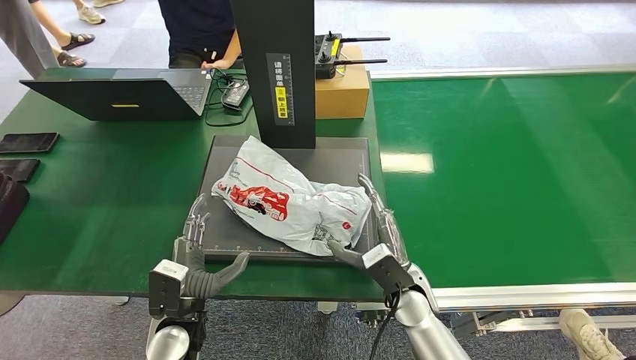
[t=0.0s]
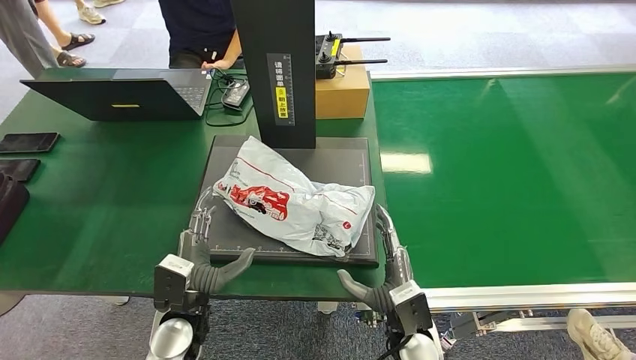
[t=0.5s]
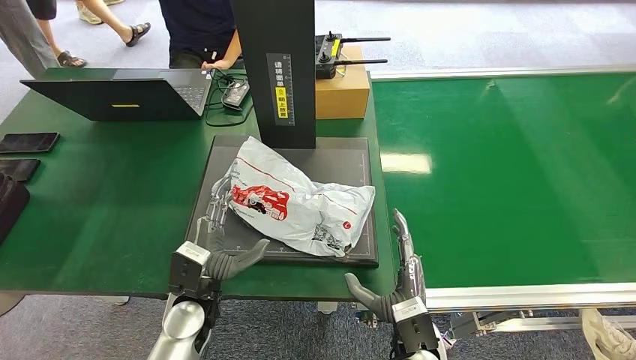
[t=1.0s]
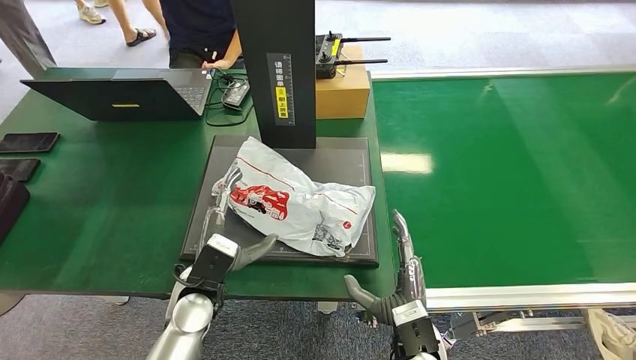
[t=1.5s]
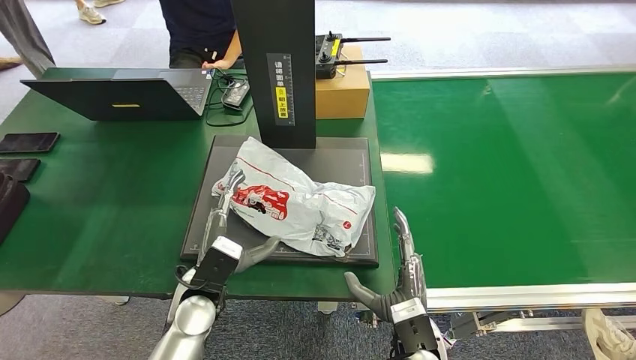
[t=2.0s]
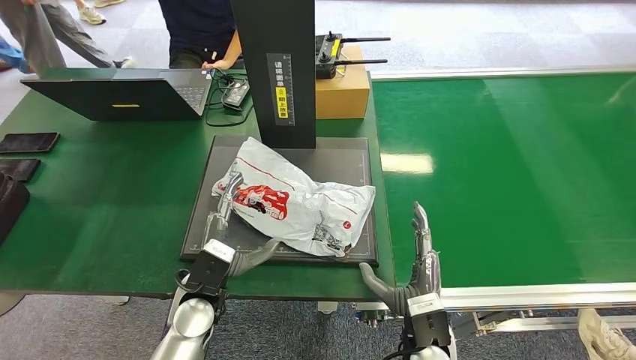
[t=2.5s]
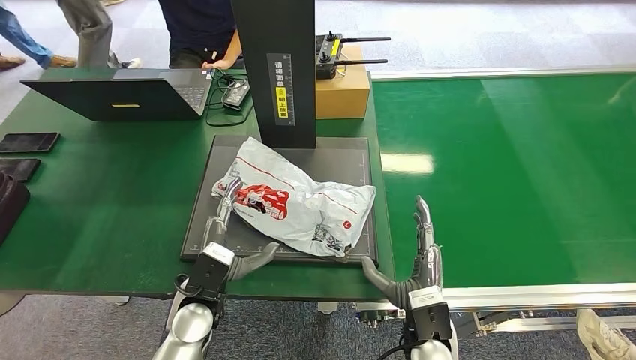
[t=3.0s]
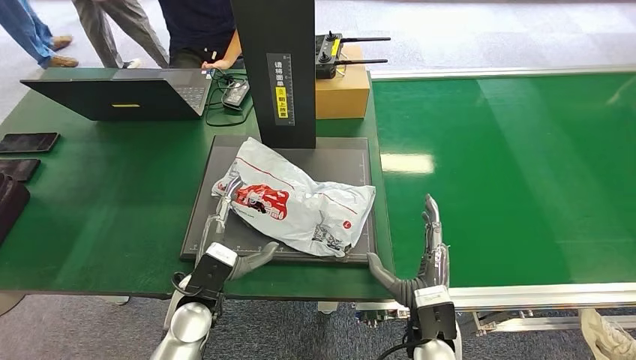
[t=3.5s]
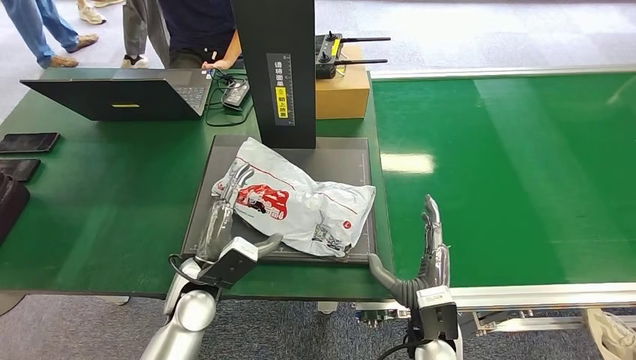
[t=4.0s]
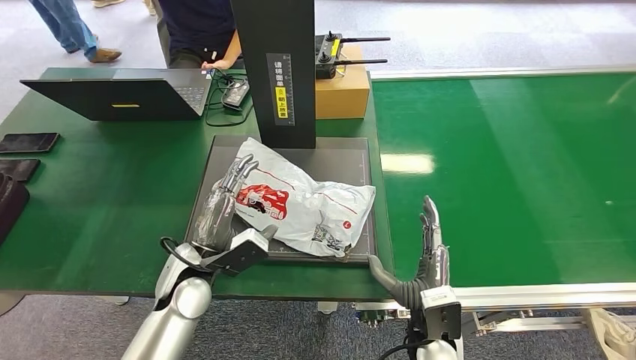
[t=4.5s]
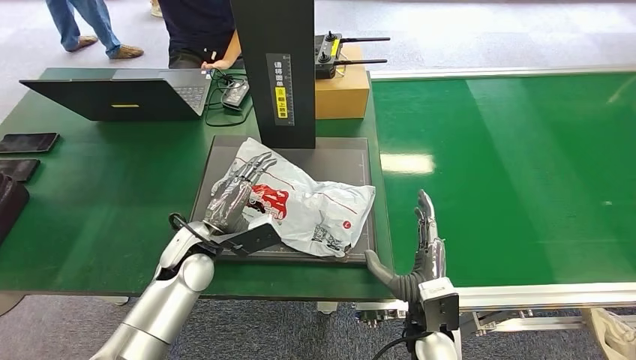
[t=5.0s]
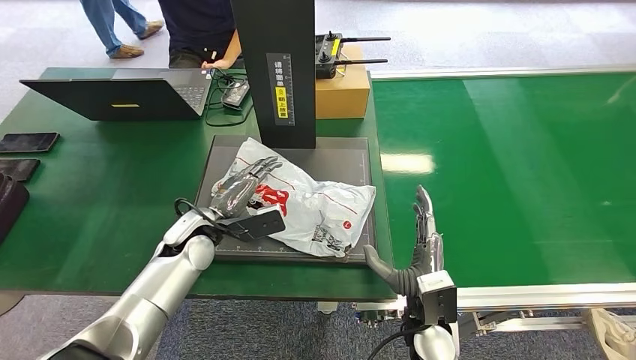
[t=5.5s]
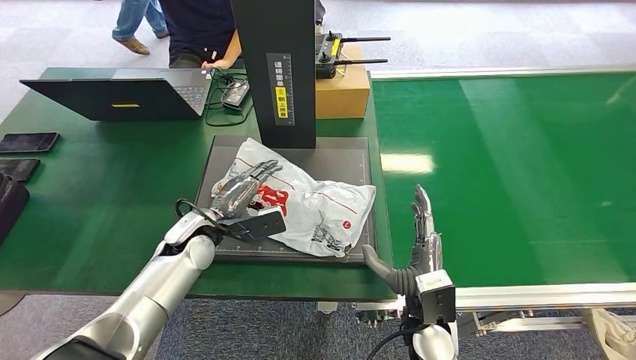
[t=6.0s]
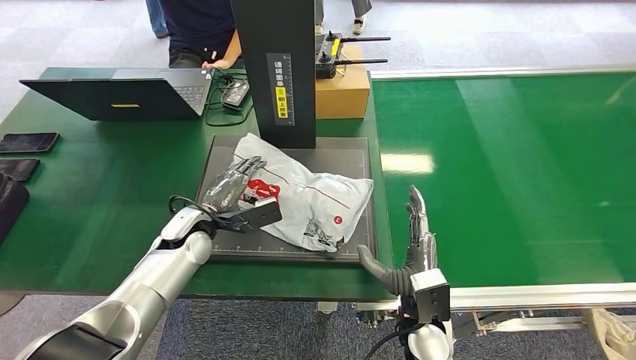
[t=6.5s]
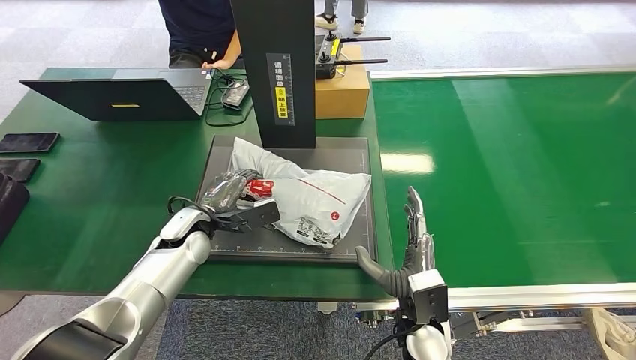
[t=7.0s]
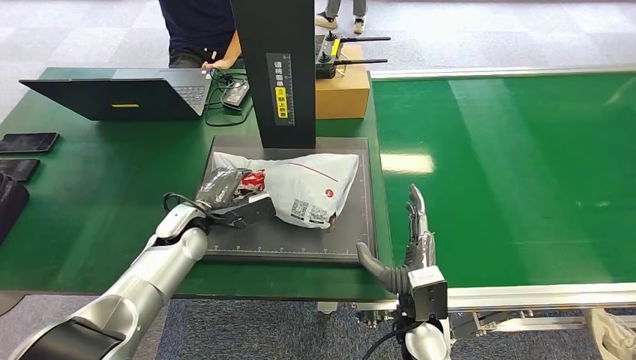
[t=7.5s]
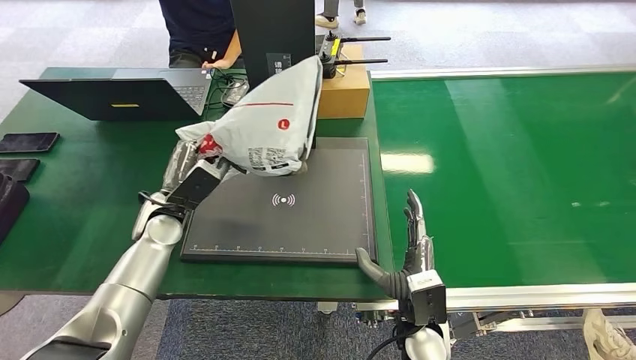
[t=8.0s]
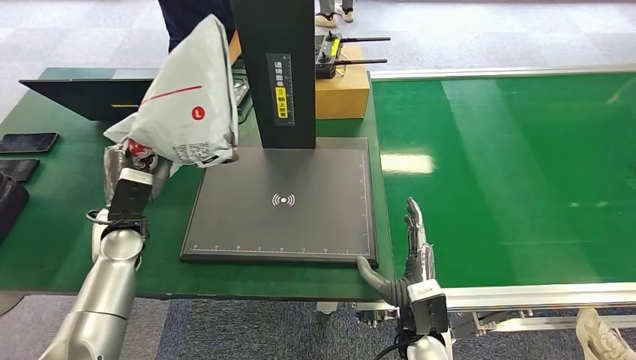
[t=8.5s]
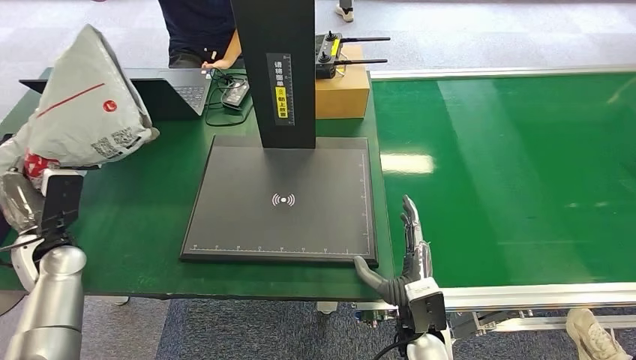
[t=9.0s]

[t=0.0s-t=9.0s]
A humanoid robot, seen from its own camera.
Step, t=0.5s to t=8.0s: Pick up the package from the inbound machine.
t=0.0s to t=2.0s: The left hand changes place by roughly 5 cm, while the right hand travels backward by about 10 cm.
t=4.5s to t=7.0s: The left hand moves forward, about 10 cm.

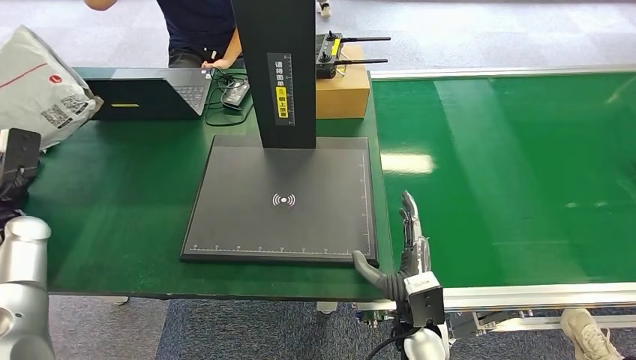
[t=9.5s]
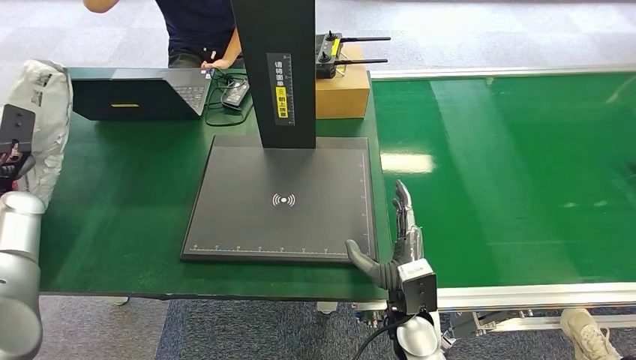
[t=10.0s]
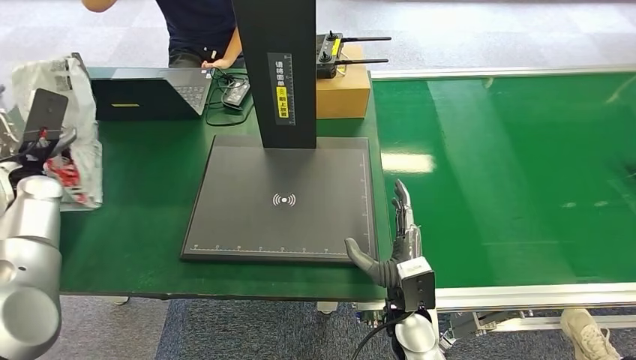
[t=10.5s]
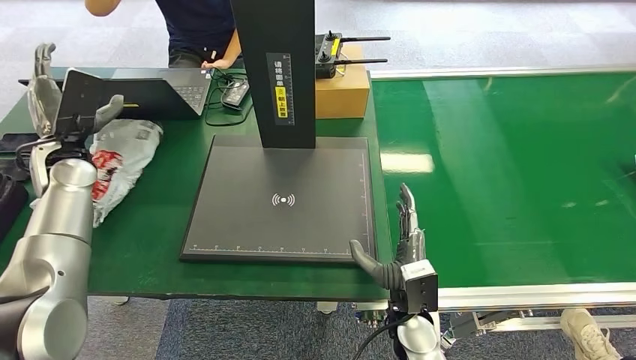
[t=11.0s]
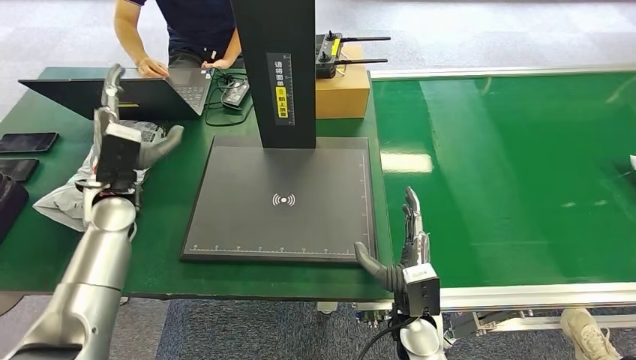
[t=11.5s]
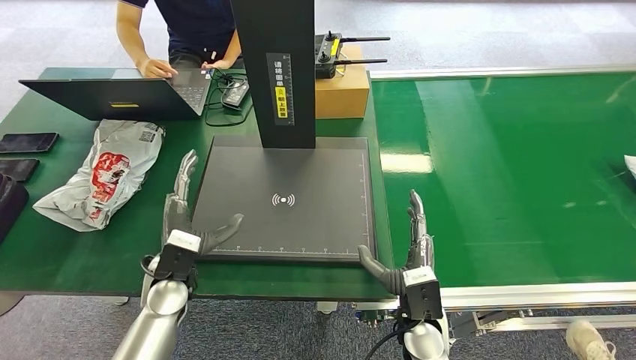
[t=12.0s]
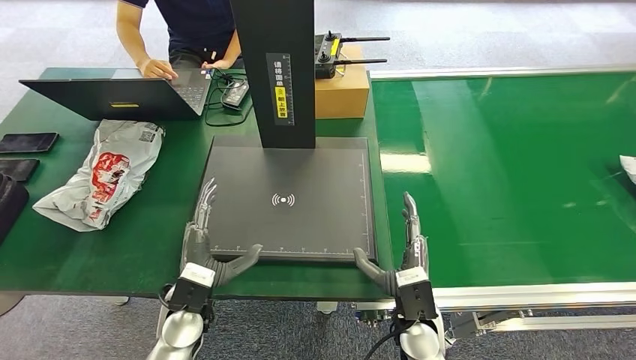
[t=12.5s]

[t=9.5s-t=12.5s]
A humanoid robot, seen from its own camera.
Step, t=9.5s to t=12.5s: Place the package into the parcel locker.
t=9.5s to t=11.0s: The left hand heads to the right, forward and upward, covering about 15 cm.
t=11.0s to t=12.5s: The left hand heads backward, to the right and downward, covering about 35 cm.

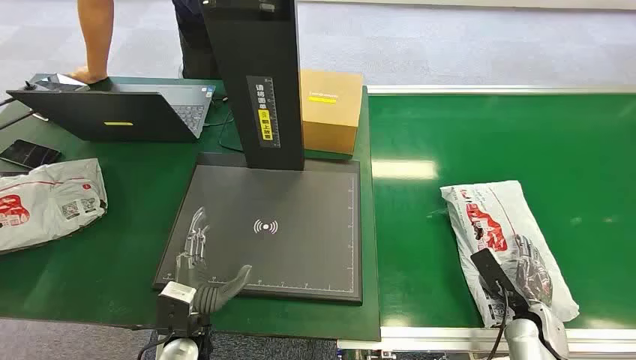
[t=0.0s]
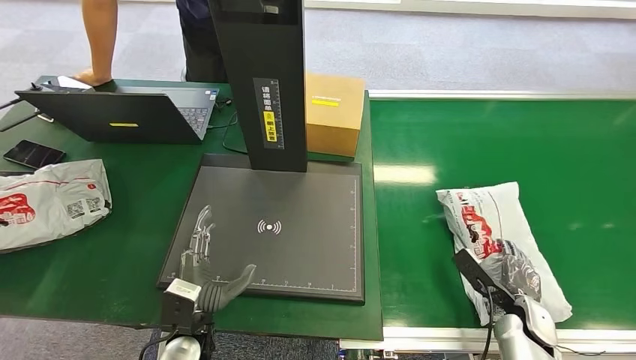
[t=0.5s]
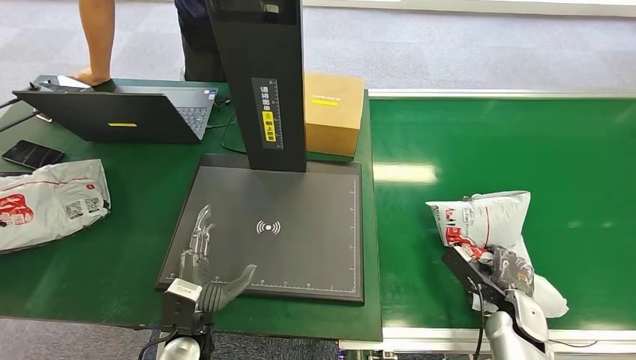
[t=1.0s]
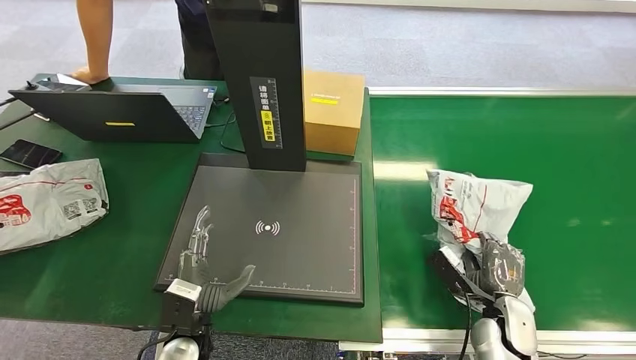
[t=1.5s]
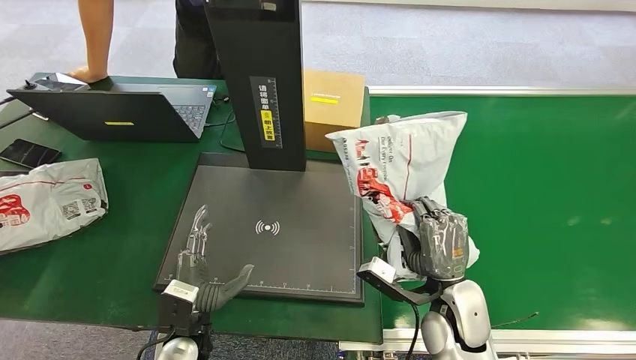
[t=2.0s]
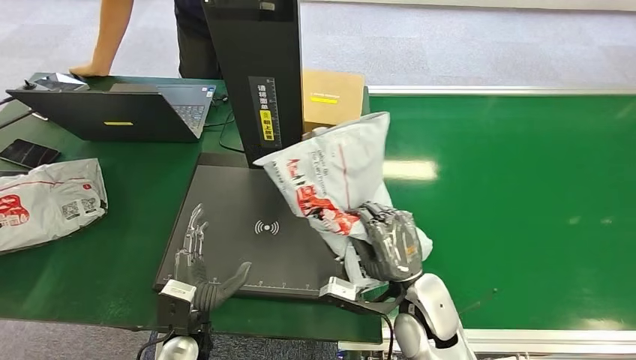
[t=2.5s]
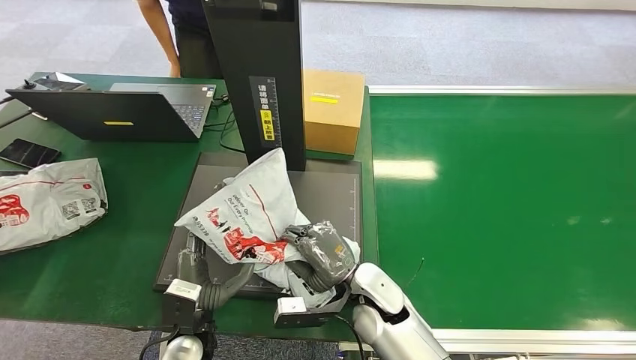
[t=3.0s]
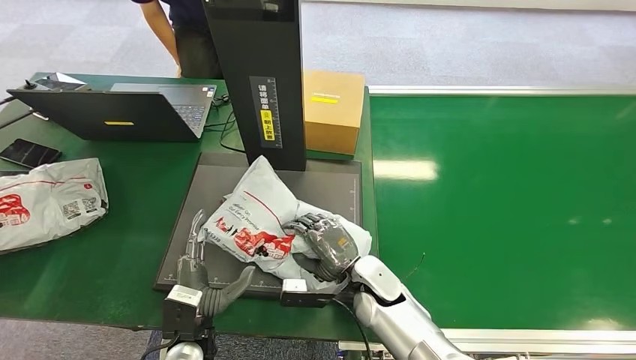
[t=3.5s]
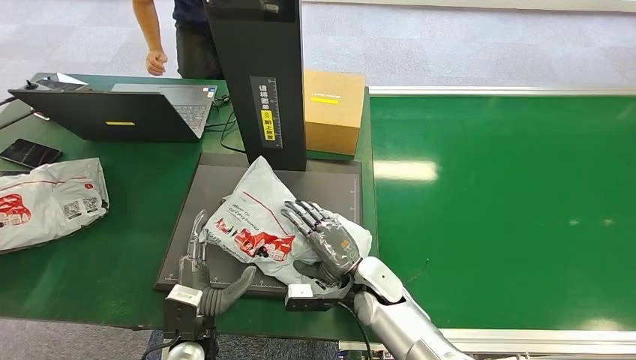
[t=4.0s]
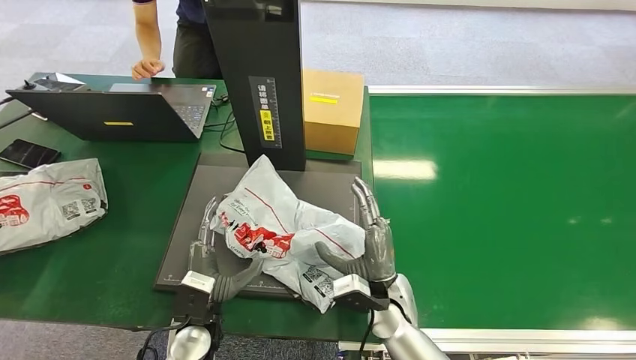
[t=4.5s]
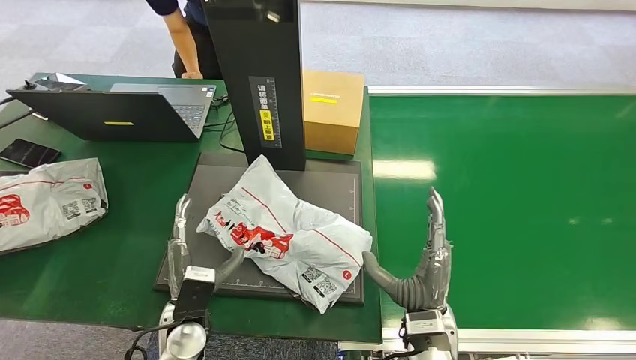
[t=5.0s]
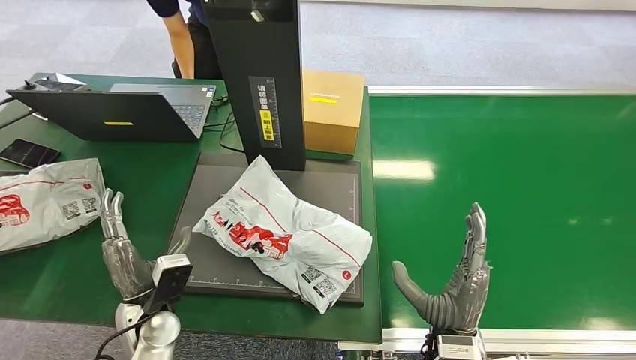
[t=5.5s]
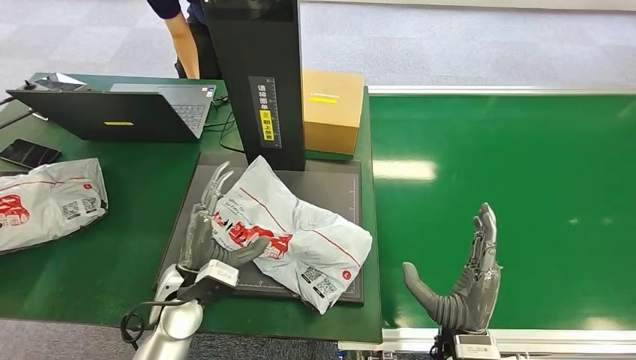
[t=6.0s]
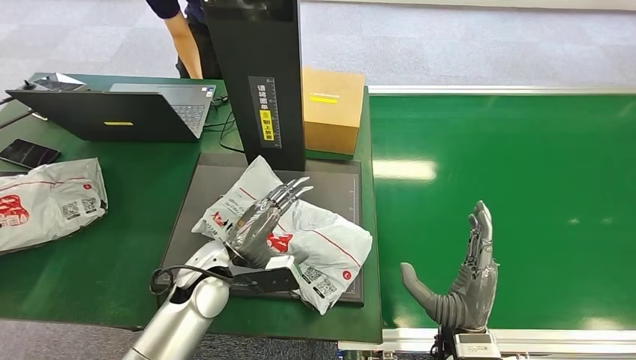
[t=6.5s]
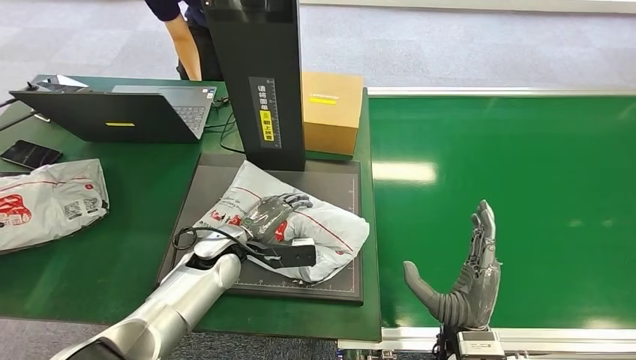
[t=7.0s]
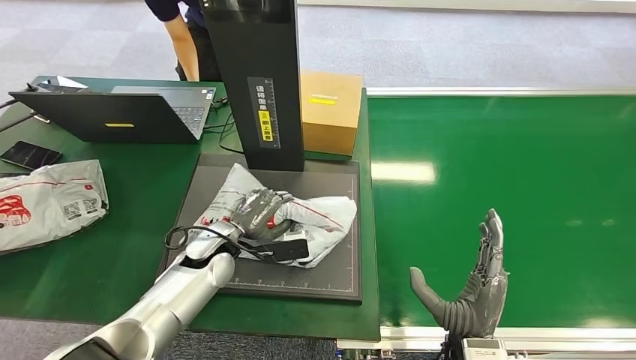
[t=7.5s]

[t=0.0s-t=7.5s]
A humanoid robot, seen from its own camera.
Step, t=0.0s to t=1.5s: Pick up the package from the conveyor belt.
Step, t=2.0s to t=5.0s: Place the package onto the inbound machine.
t=4.0s to t=5.5s: The left hand shifts about 5 cm to the left. The right hand travels backward and to the right by about 15 cm.
